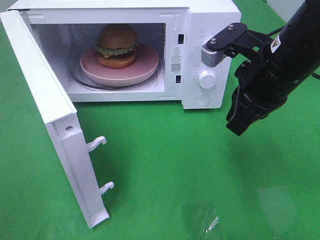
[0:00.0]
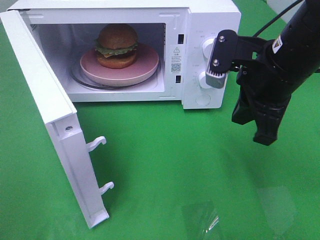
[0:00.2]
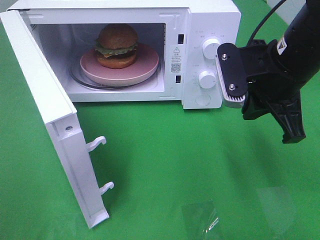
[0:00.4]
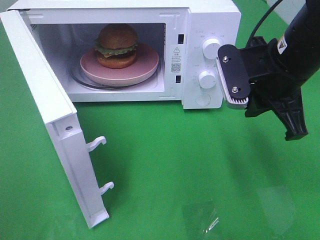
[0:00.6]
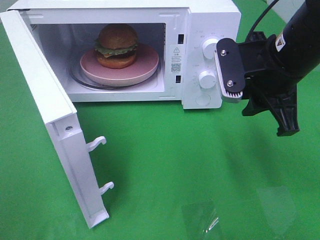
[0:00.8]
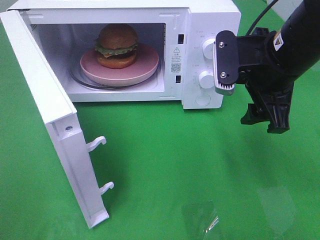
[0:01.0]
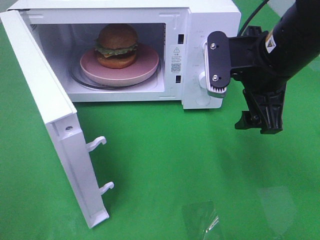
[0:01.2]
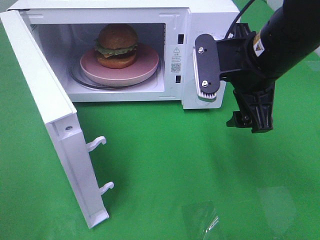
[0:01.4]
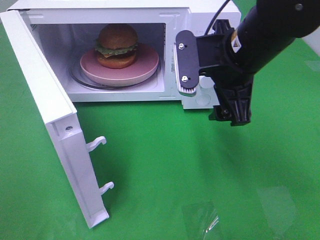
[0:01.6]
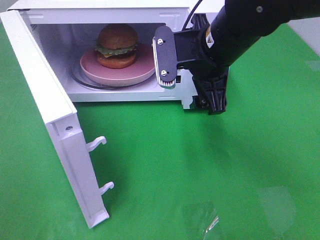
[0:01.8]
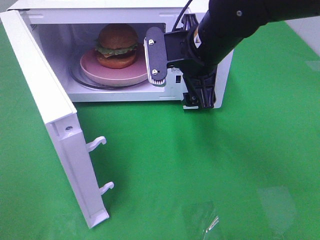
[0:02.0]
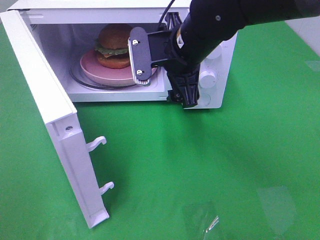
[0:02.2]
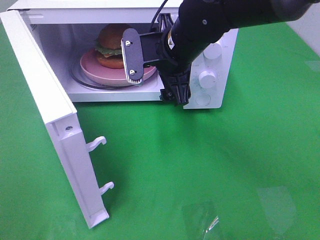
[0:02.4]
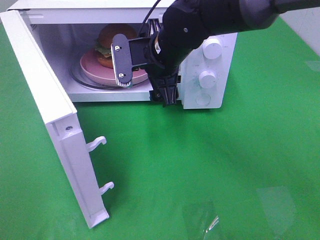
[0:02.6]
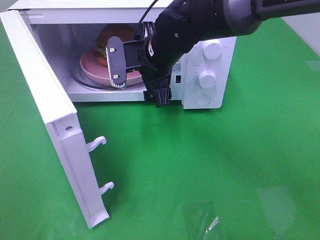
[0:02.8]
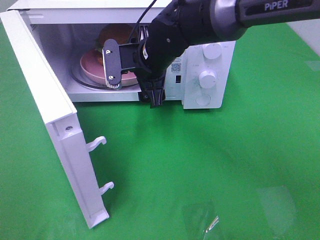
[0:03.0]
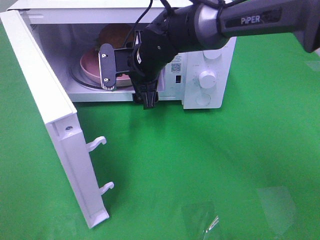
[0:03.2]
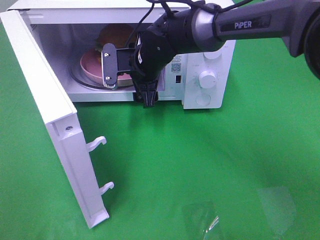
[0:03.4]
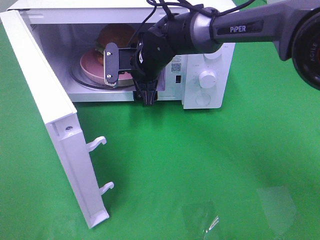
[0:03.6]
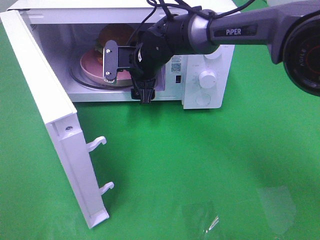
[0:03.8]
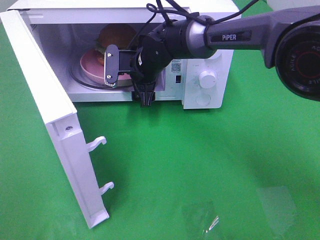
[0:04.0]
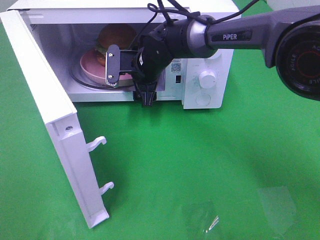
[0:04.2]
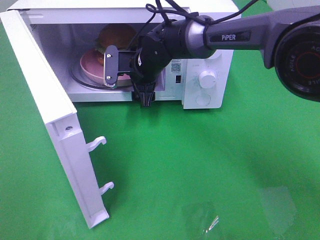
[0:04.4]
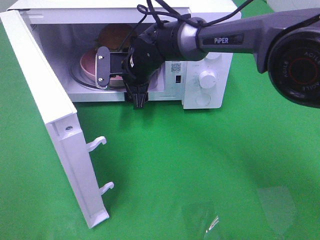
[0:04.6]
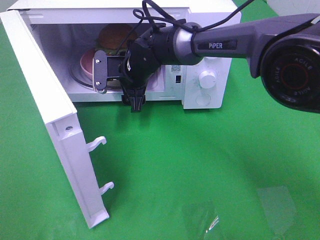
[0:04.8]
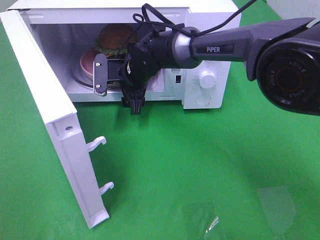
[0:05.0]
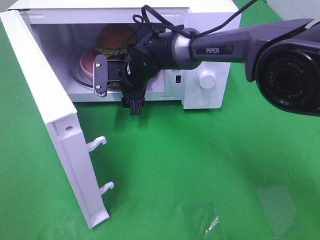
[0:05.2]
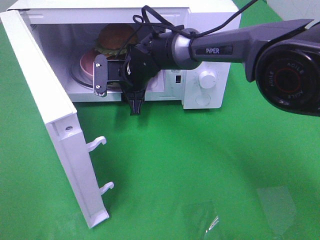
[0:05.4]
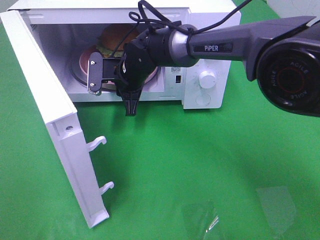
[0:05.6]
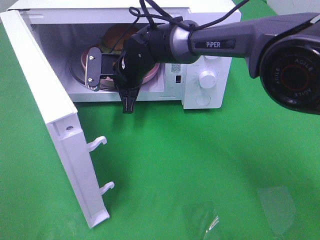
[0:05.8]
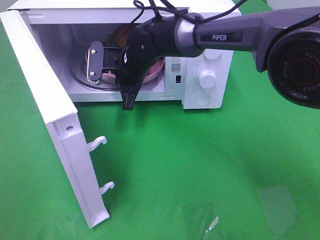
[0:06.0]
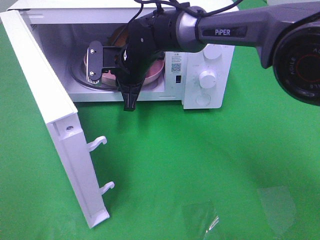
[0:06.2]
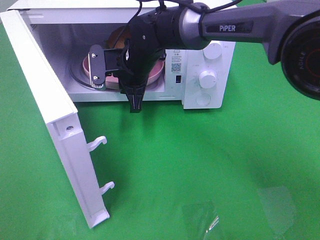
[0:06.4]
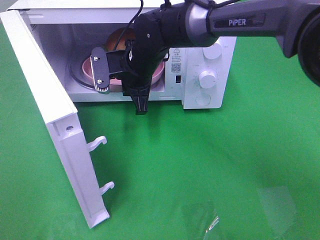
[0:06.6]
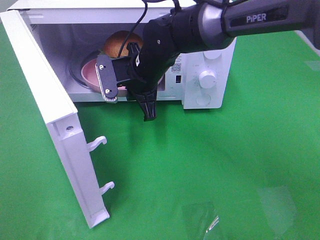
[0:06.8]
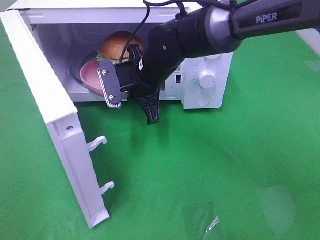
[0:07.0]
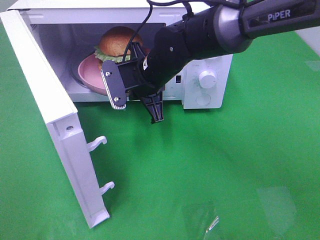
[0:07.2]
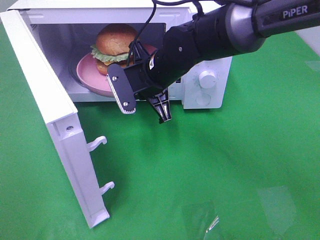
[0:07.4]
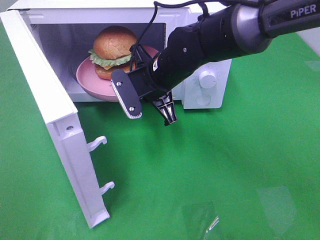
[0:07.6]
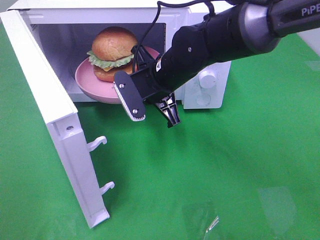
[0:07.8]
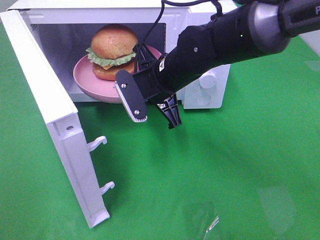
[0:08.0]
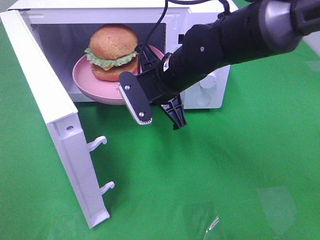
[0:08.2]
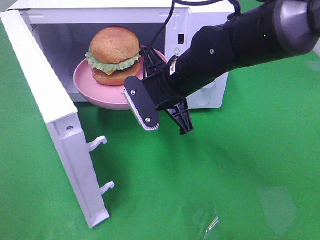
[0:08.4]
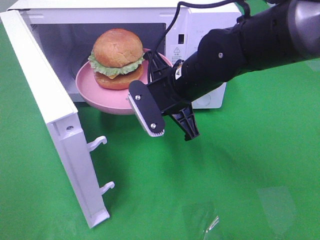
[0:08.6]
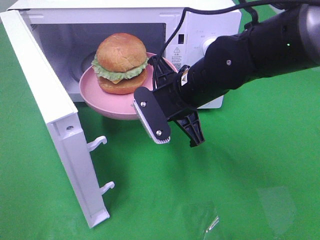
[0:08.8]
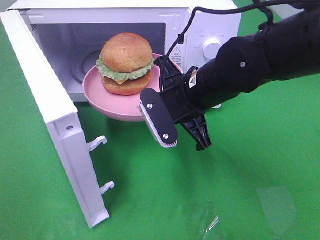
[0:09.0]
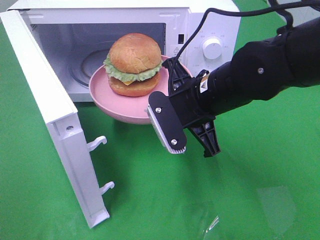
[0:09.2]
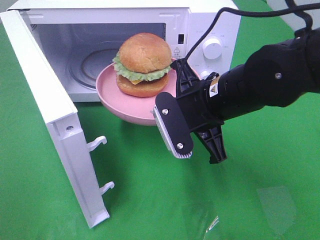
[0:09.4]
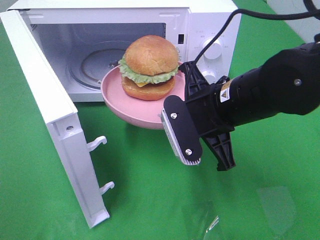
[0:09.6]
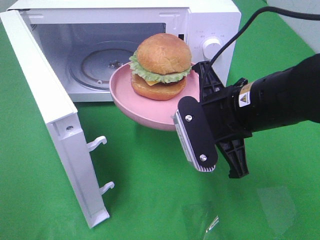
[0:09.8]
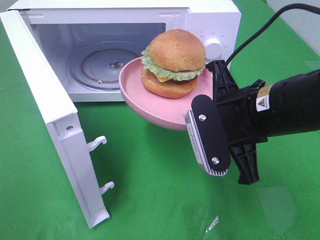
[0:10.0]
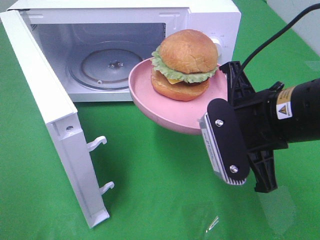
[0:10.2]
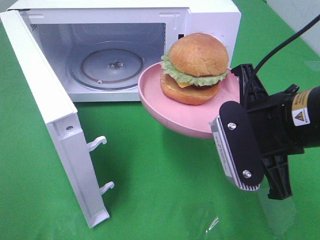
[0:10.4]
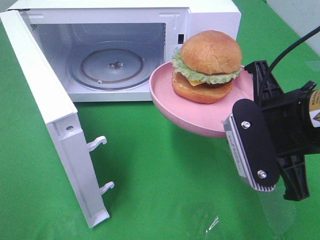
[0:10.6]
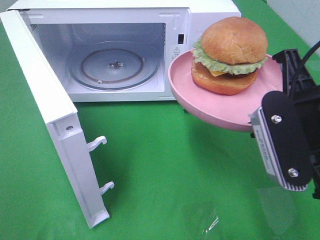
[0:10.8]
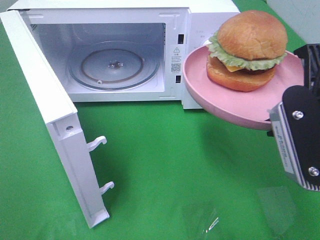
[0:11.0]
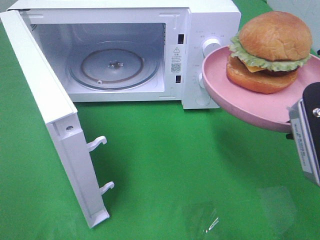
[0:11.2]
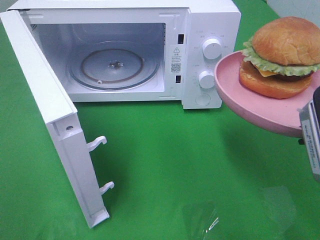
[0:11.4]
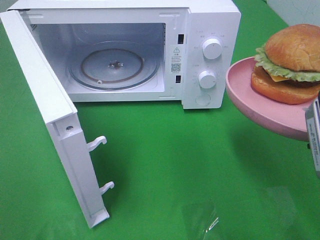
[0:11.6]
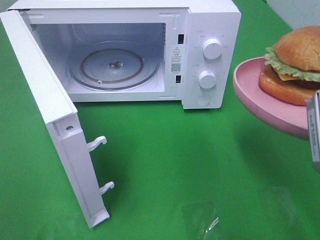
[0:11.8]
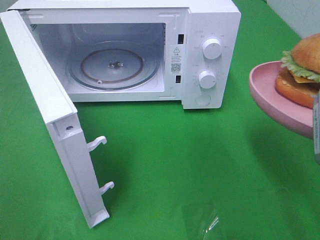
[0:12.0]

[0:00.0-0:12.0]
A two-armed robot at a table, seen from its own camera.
Task of the whole recording: Heat the burger.
Step, 0:00.0 to 0:05.6: Right hand: grab the plate with the hamburger.
0:00.0 to 0:01.6: The right gripper ends up approximately 5 cm from where it was, and opens its fingers.
0:01.6 to 0:03.0: The right gripper heads to the left, forward and downward, covering approximately 15 cm.
0:03.0 to 0:04.4: The right gripper goes roughly 5 cm forward.
0:04.4 to 0:06.0: The right gripper closes.
0:06.0 to 0:07.6: The right gripper moves backward and to the right, about 10 cm.
0:07.6 to 0:09.0: The right gripper moves backward and to the right, some 10 cm.
0:09.0 to 0:10.4: The right gripper heads backward and to the right, covering some 15 cm.
0:10.4 to 0:12.0: The right gripper is displaced to the right by some 10 cm.

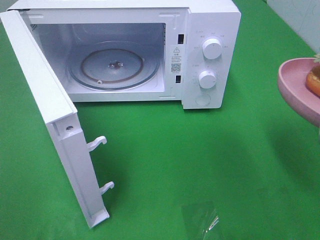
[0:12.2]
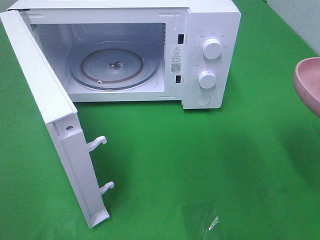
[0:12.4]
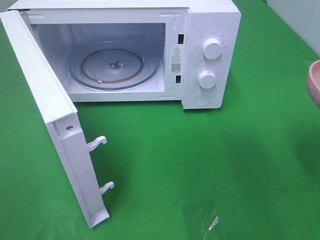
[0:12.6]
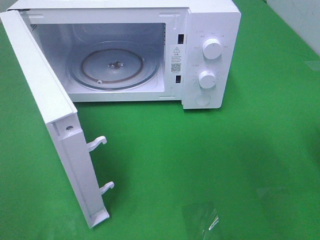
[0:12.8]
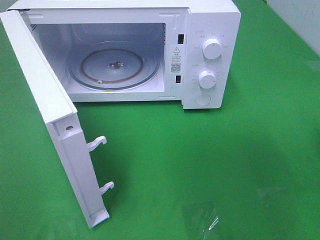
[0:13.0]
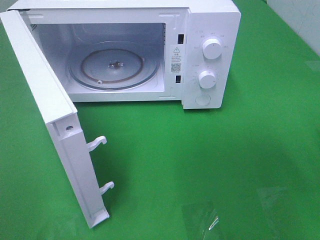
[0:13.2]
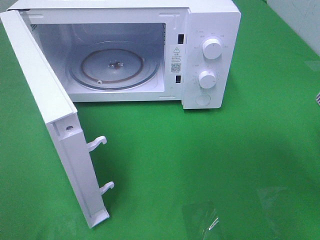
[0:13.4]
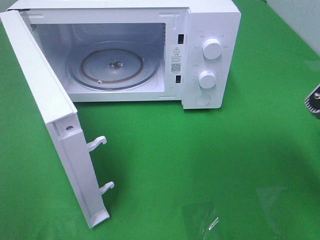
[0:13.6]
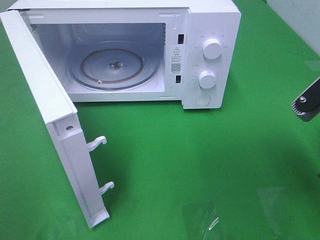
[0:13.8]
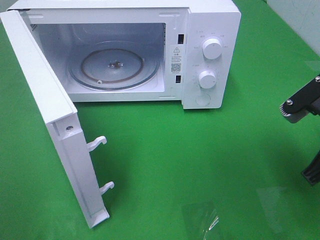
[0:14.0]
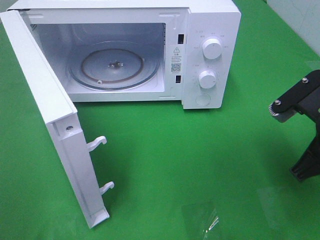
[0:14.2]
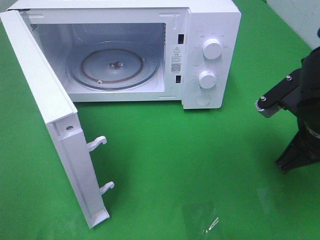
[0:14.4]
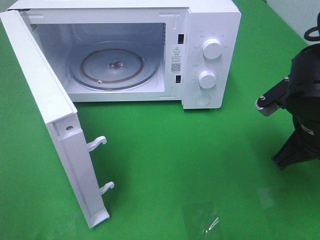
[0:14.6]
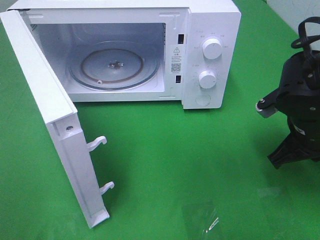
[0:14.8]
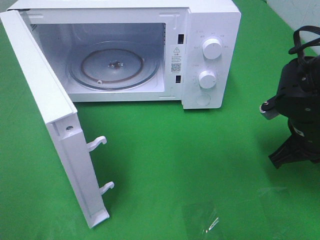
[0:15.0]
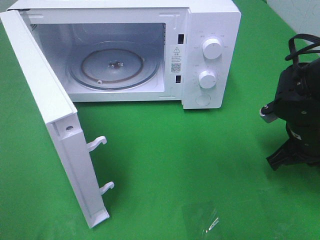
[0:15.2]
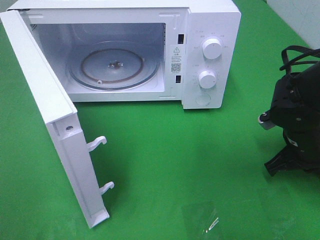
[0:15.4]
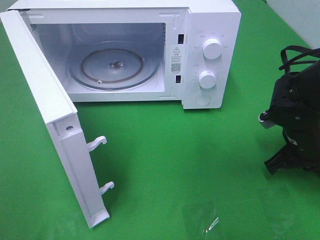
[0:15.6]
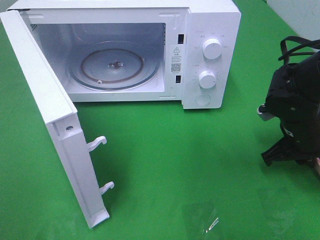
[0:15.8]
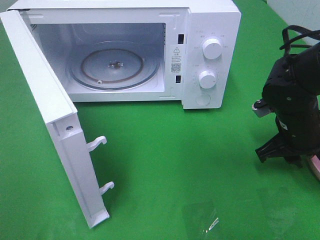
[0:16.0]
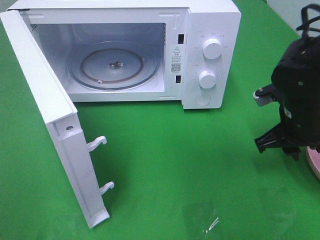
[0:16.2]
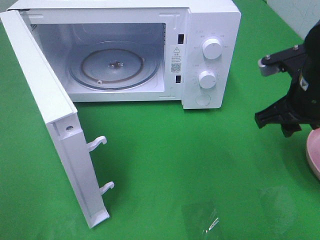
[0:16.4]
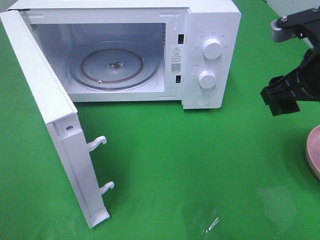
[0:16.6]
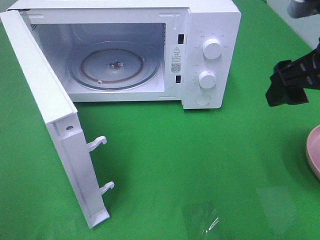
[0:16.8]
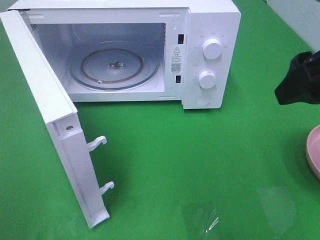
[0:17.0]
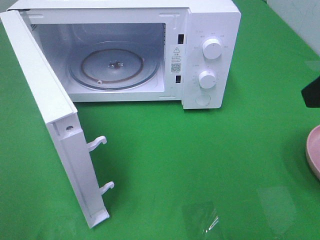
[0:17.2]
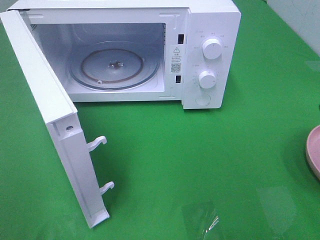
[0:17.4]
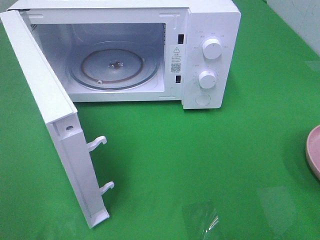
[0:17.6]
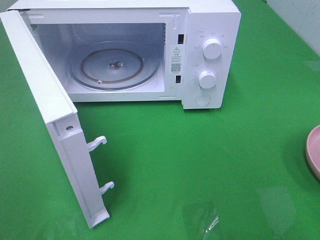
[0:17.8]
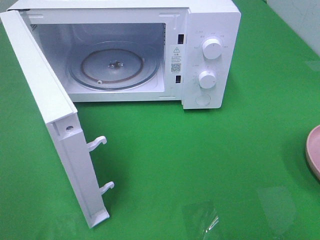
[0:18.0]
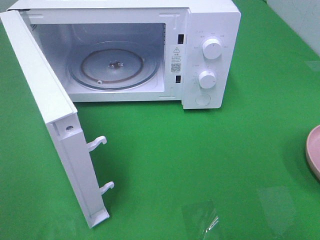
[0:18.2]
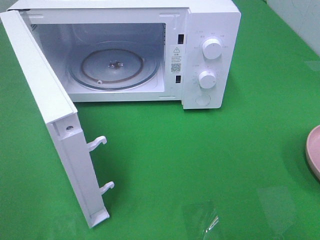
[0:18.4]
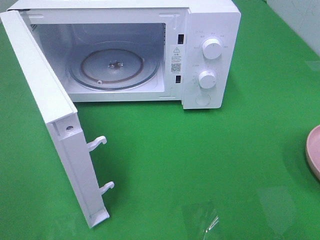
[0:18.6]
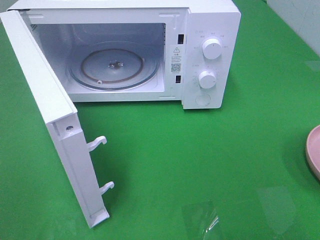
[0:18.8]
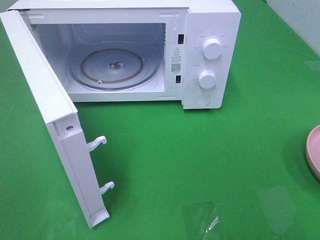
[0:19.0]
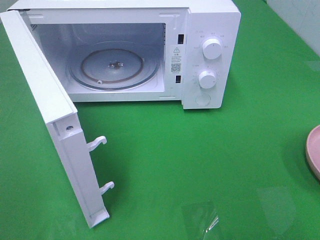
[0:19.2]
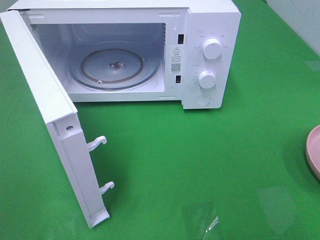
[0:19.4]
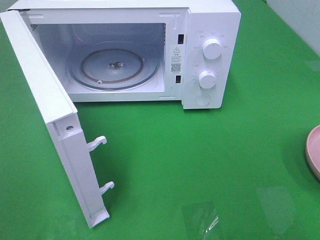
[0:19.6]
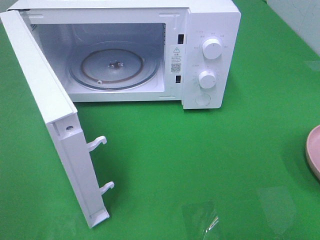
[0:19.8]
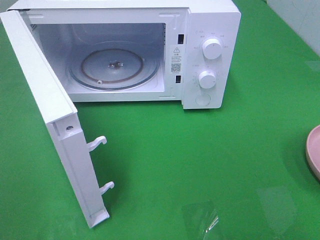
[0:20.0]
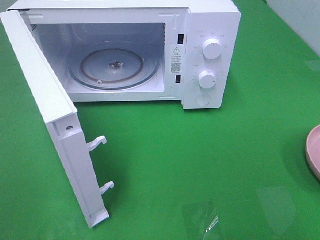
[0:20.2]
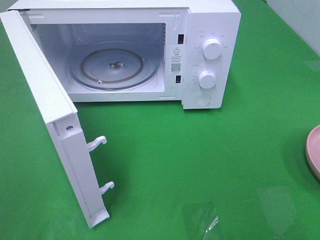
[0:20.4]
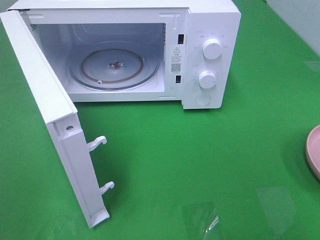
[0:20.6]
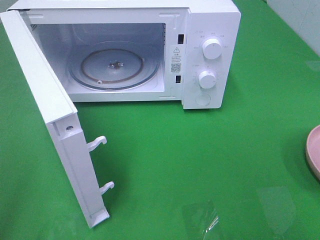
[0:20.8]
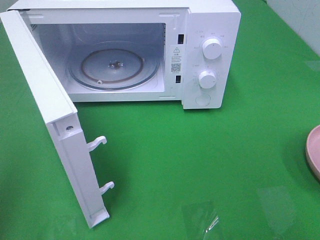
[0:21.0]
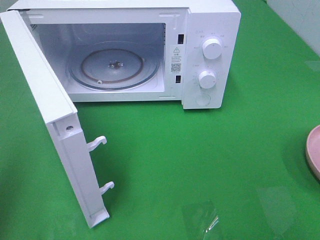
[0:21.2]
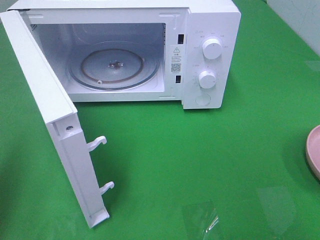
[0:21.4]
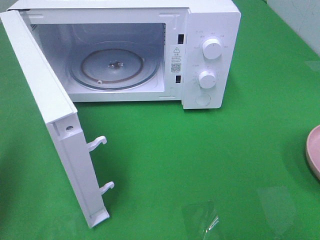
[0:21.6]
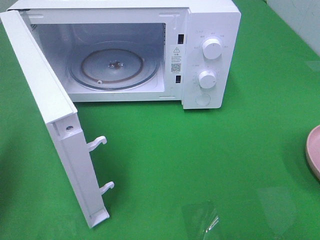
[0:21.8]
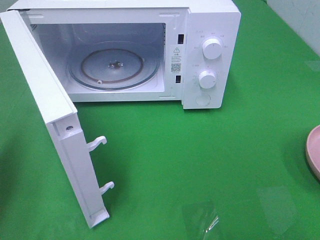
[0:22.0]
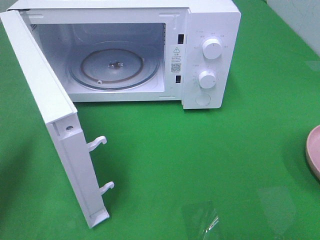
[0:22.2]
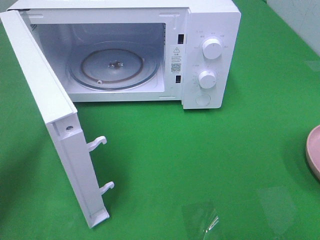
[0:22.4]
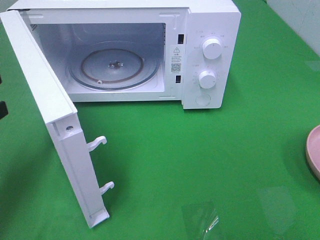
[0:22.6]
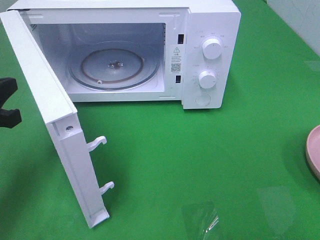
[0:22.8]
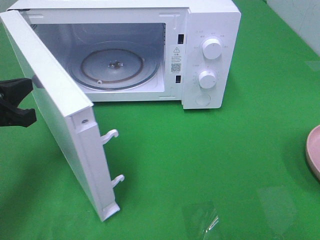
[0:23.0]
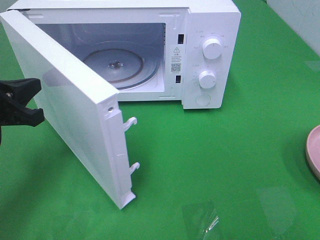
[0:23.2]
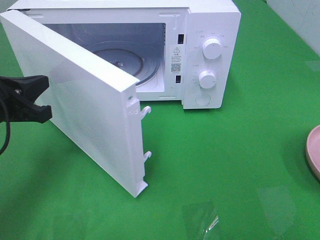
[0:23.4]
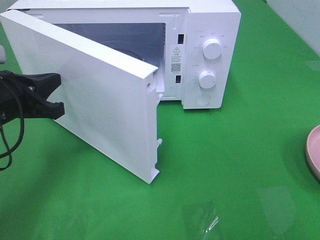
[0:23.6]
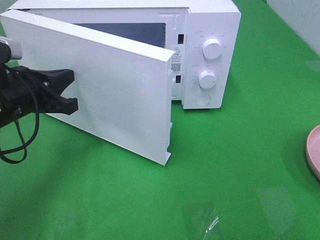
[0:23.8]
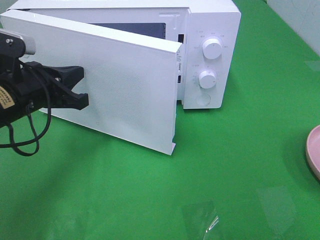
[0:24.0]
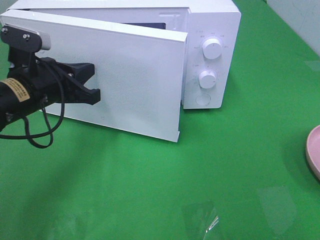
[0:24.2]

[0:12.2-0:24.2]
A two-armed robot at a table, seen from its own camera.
Task of the whole recording: Heat the burger.
Step, 0:12.2 to 0:15.8: Right hand: place the plate on the table.
0:12.2 to 0:13.8: The right gripper shifts by about 5 cm.
0:13.8 to 0:15.2: The right gripper shifts some 15 cm downward and forward.
0:15.2 to 0:16.6: The right gripper heads upward, covering about 15 cm, and opens its fingers.
0:16.6 to 0:18.2: The right gripper moves backward, approximately 20 cm.
0:21.2 to 0:22.6: The left gripper is displaced downward and forward by some 20 cm.
0:22.6 to 0:24.2: The left gripper heads to the right and forward, covering about 15 cm.
